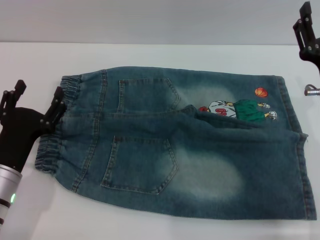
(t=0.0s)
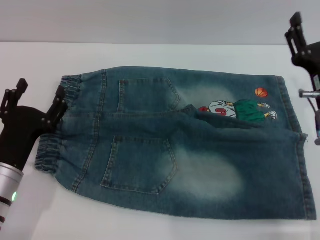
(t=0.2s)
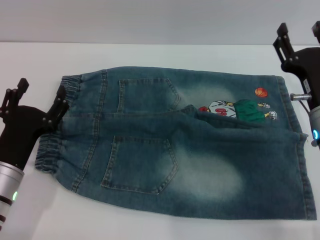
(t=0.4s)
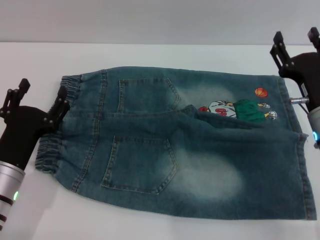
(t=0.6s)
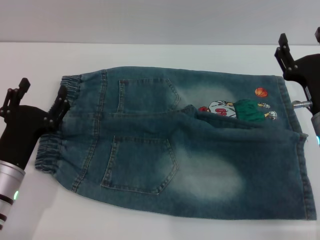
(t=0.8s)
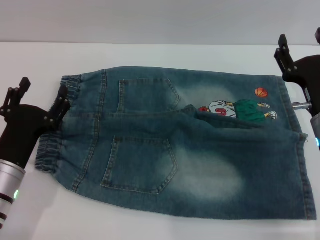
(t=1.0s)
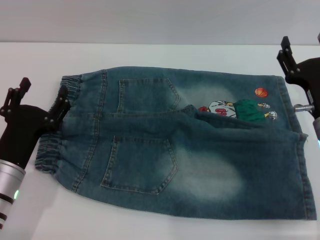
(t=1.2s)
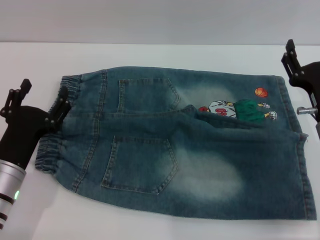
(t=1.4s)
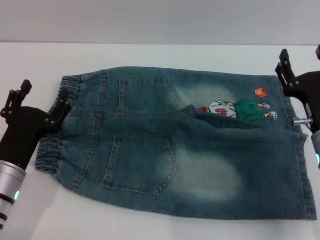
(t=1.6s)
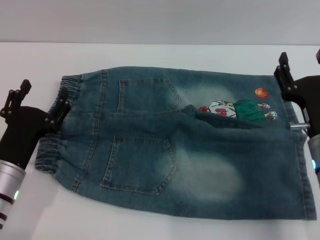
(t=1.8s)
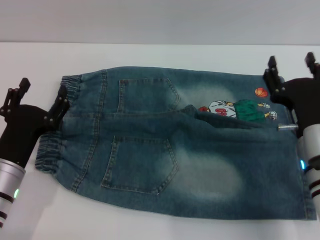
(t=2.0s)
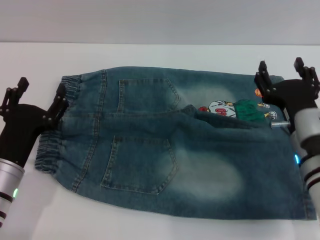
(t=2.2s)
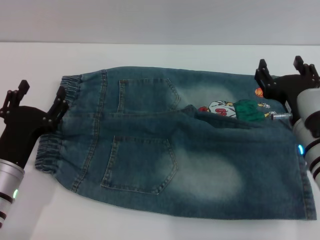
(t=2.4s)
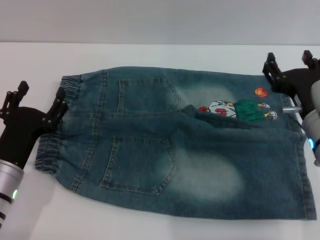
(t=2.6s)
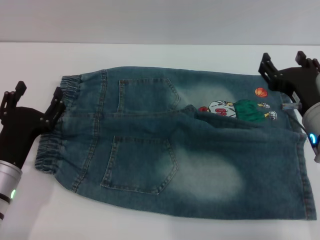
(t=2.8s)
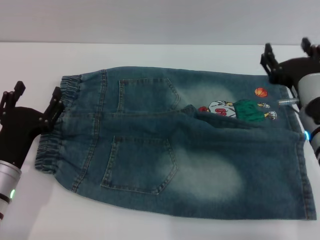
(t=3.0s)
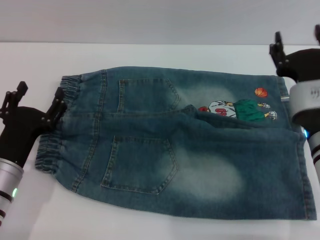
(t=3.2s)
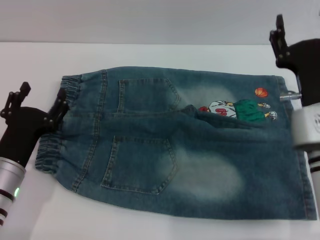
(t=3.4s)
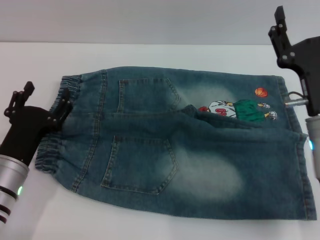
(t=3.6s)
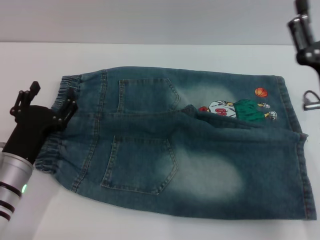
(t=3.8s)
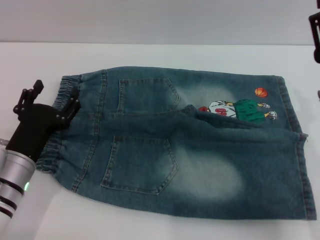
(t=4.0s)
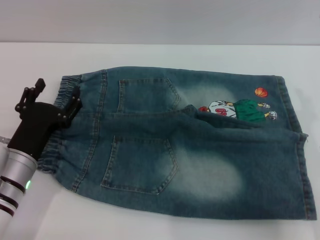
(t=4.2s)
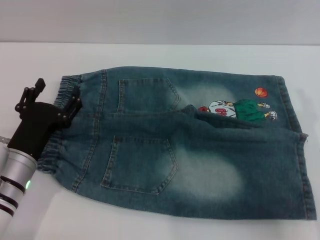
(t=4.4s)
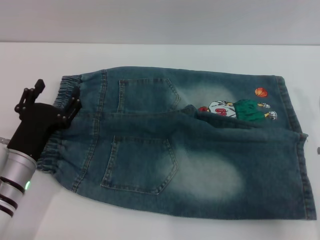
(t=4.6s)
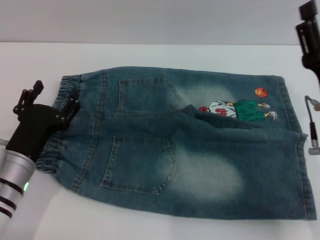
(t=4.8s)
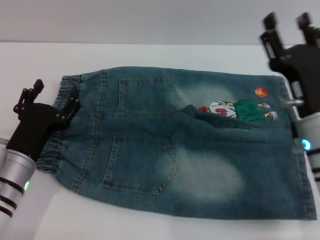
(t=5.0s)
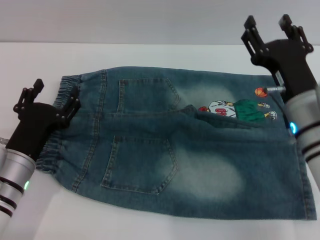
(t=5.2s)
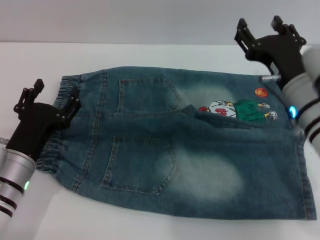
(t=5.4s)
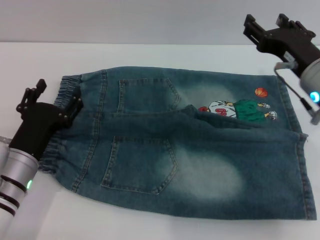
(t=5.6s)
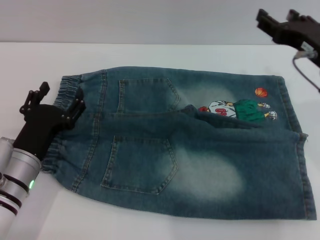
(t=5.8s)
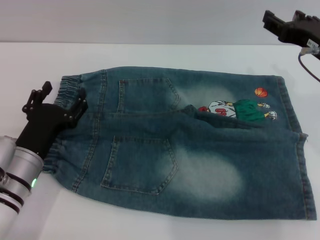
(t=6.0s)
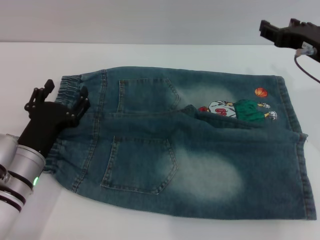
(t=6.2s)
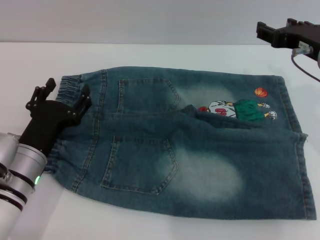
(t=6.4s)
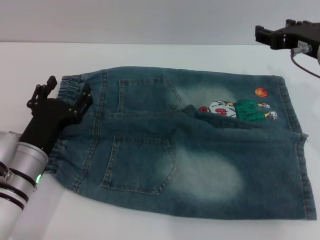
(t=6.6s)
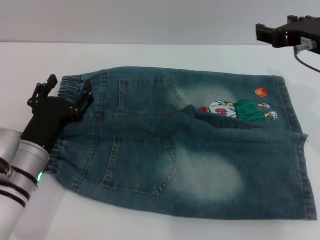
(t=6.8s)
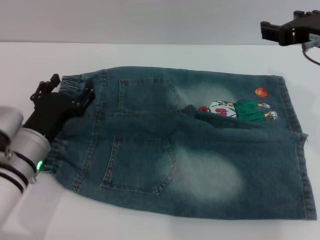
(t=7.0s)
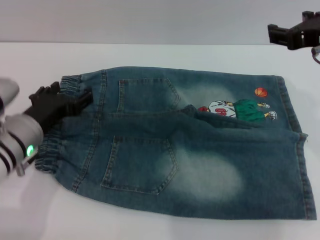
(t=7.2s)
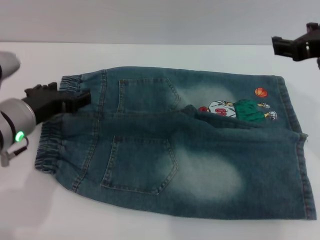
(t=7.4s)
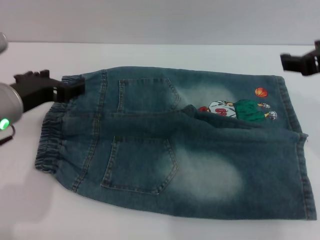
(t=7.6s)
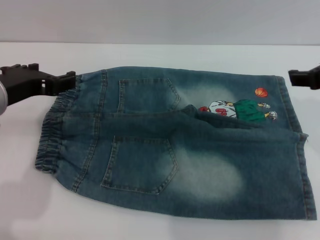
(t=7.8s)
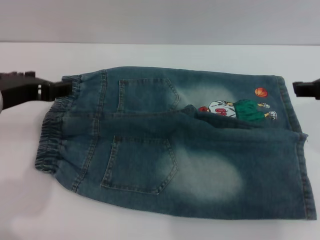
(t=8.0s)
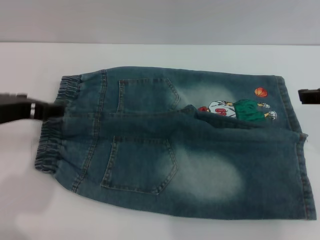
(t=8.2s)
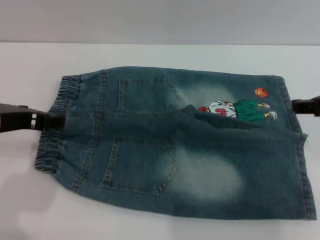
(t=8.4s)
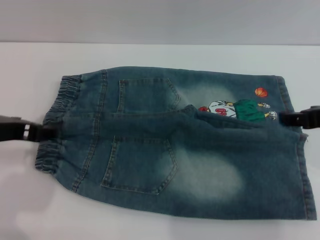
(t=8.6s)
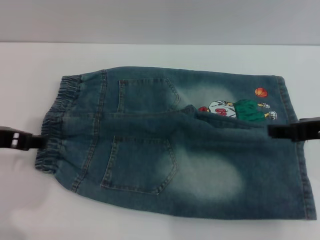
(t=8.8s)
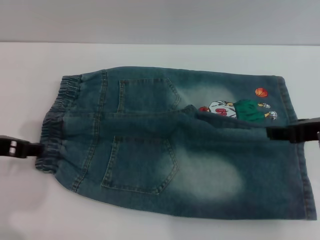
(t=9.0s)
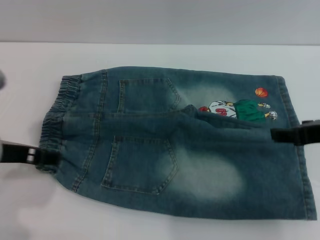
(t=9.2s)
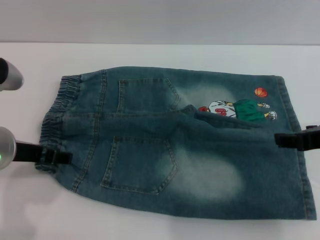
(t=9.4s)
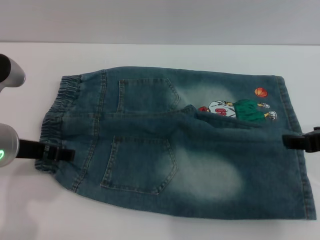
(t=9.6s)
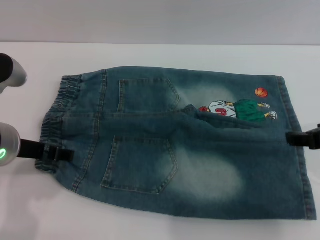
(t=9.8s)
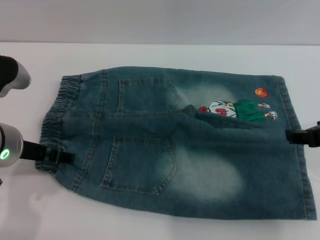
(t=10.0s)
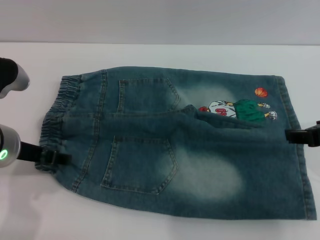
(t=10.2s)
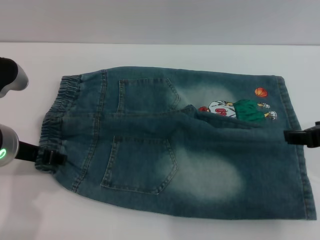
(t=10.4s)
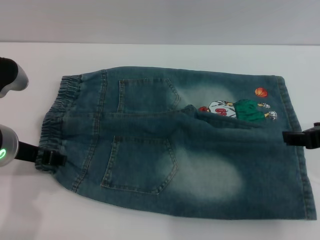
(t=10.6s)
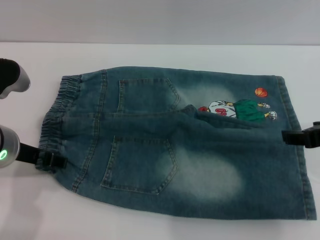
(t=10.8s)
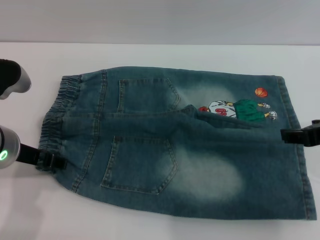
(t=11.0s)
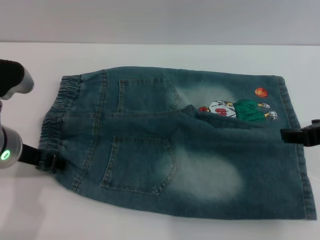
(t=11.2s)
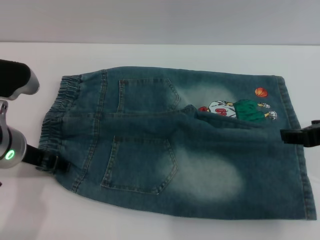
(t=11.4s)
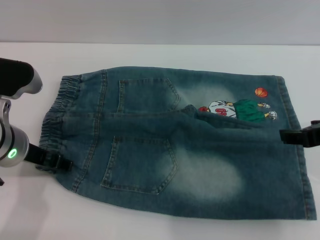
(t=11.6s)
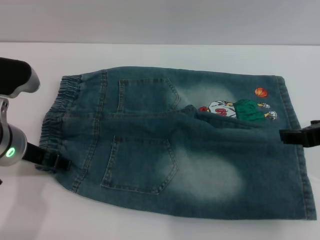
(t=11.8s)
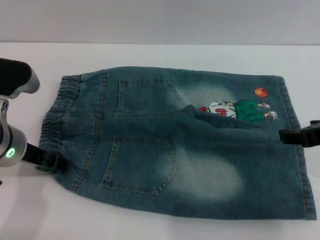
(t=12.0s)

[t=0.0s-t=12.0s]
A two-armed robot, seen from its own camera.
t=0.0s to t=1.6s: There are only small adjustments of the grippers.
t=1.6s to t=3.0s: The right gripper moves upward, roughly 5 cm.
t=4.4s to t=6.0s: The right gripper is displaced forward and upward by roughly 10 cm.
t=6.0s to t=7.6s: The left gripper goes about 15 cm upward, while the right gripper moves upward and backward, roughly 10 cm.
t=7.6s to t=9.0s: The right gripper moves some 5 cm.
t=9.0s to t=10.4s: The left gripper moves some 5 cm.
t=10.4s to t=12.0s: There are only small adjustments of the grippers.

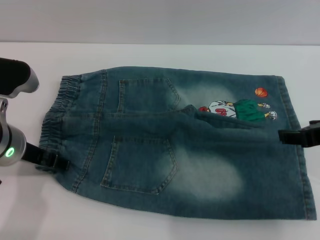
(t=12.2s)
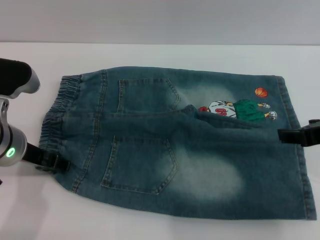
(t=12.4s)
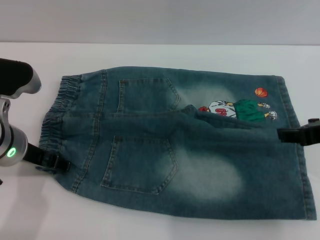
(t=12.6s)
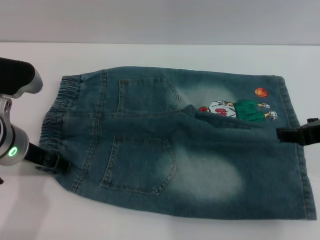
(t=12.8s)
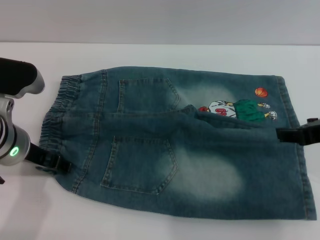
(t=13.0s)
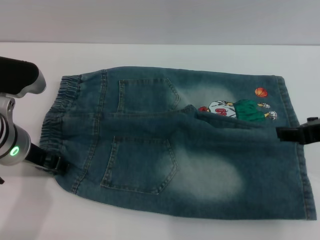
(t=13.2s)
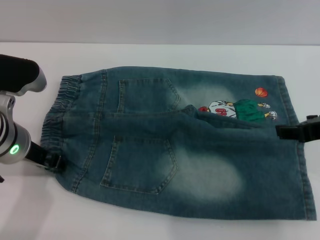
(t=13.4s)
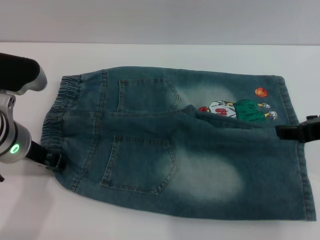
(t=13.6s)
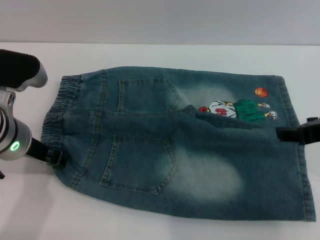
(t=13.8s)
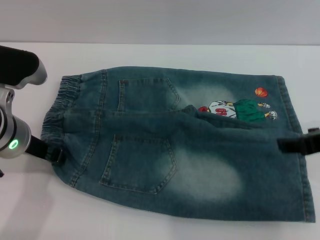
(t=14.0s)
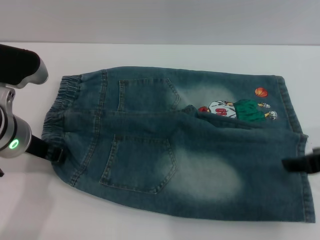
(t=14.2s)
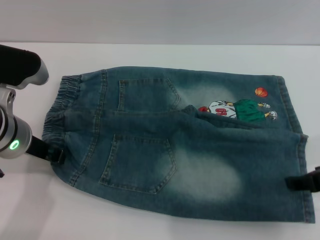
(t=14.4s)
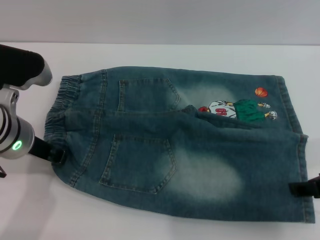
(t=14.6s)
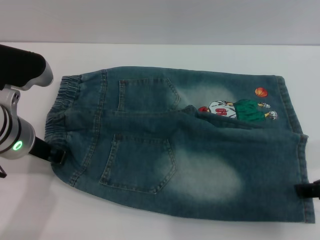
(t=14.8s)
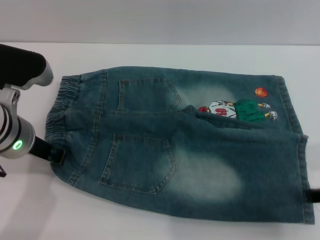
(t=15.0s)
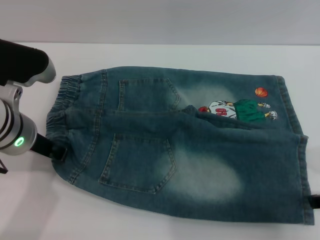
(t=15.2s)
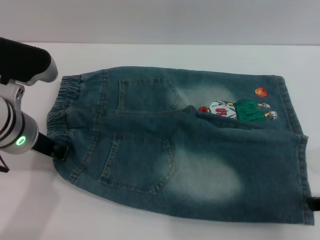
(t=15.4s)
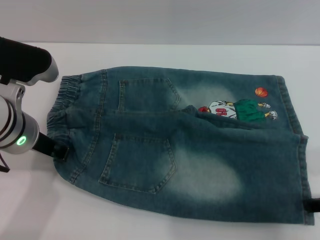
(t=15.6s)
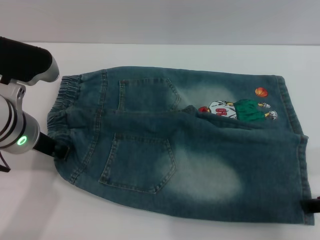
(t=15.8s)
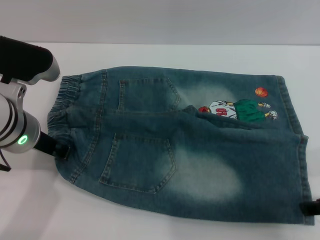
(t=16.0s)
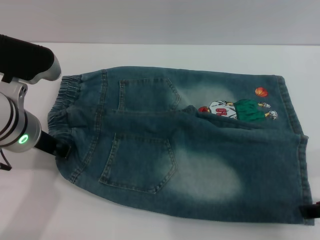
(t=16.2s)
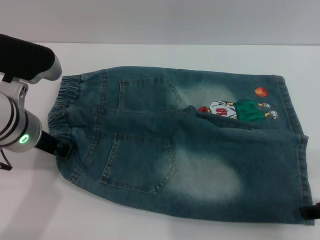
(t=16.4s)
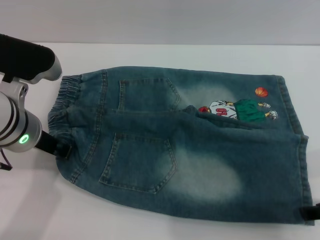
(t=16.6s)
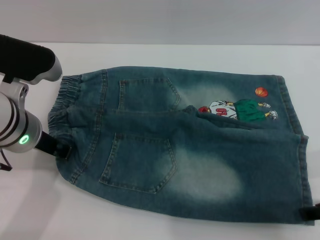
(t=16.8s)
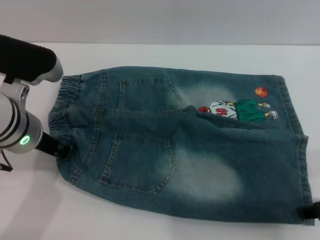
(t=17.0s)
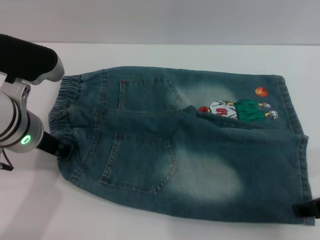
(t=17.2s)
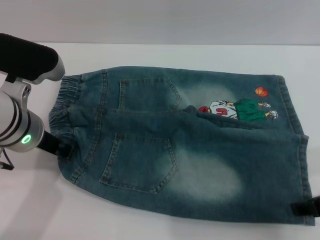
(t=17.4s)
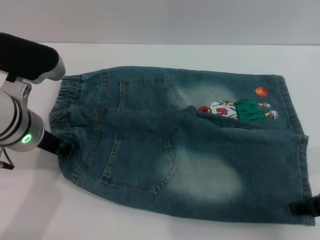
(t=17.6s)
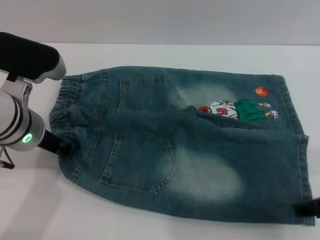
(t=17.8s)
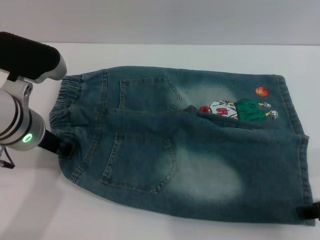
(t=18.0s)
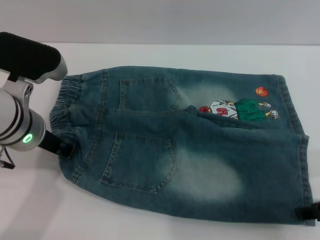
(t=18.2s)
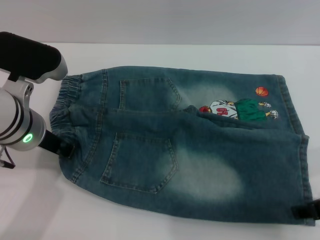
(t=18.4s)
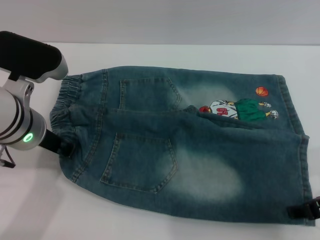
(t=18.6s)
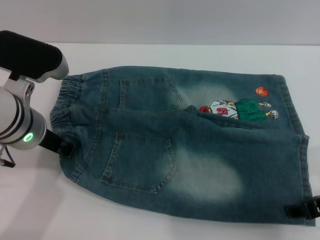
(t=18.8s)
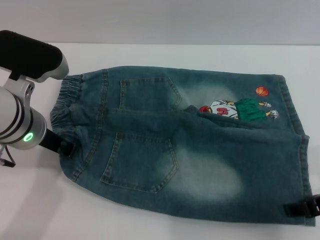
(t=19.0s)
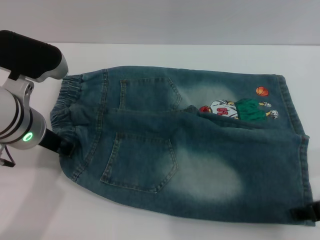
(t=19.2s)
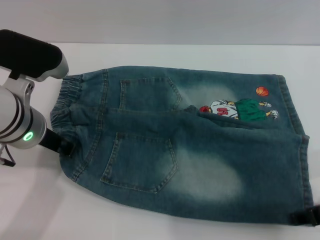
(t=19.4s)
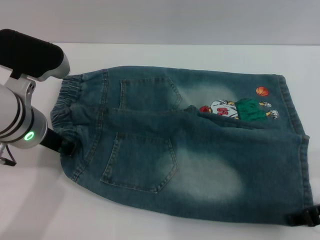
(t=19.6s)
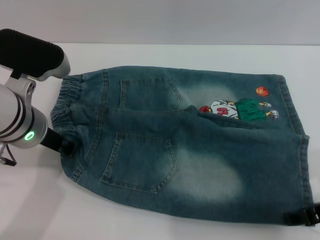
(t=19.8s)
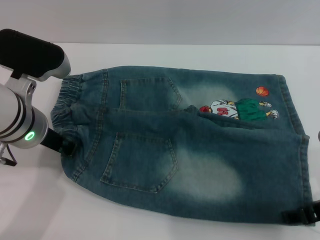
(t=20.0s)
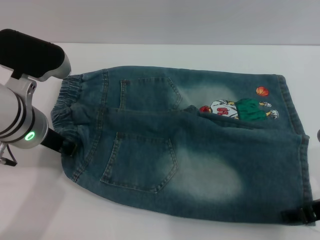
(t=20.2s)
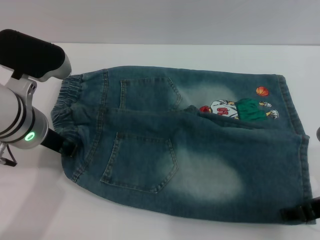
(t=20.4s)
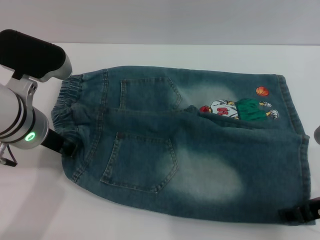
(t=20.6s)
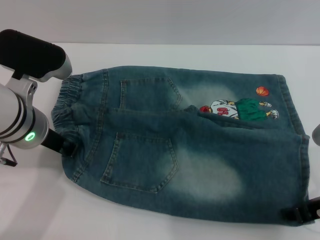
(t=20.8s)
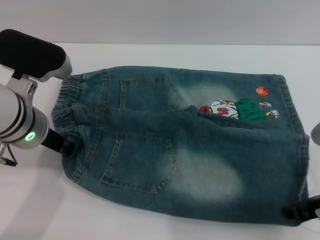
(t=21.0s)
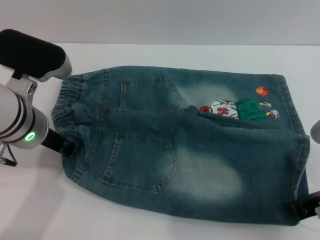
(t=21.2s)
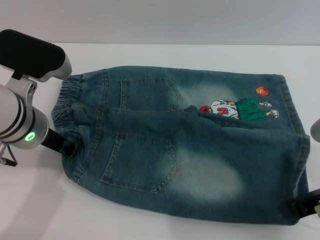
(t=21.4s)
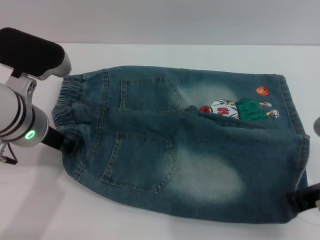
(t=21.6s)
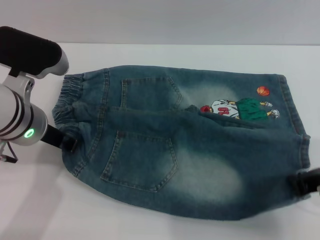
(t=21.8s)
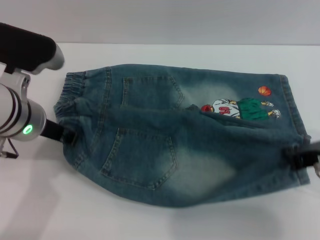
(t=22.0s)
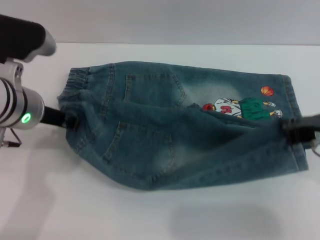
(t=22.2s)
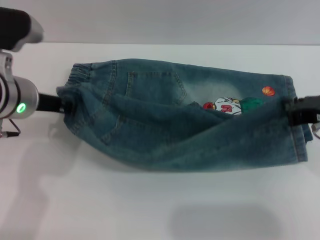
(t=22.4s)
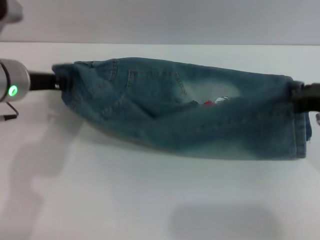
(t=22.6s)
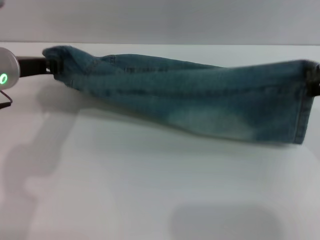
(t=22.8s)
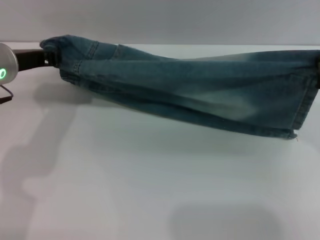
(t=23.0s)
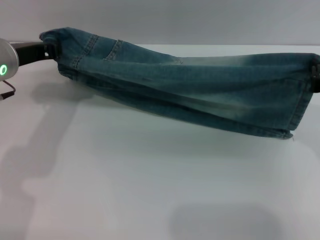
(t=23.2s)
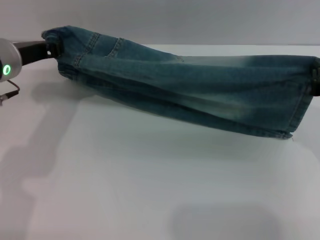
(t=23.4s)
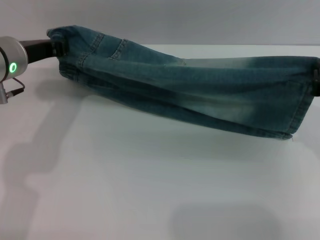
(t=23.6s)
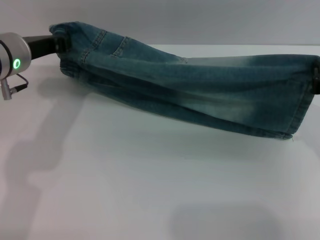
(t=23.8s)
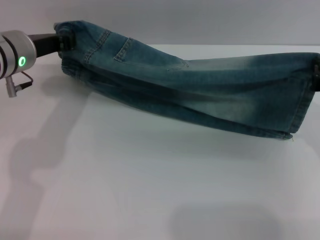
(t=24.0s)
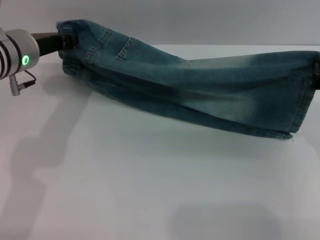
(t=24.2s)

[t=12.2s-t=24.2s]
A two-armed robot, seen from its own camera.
t=12.2s to t=13.8s: The left gripper closes up.
t=13.8s to t=15.2s: The right gripper changes place by some 5 cm.
t=15.2s to t=16.6s: Both grippers stay about where they are.
t=16.6s to t=18.2s: Both grippers stay about where they are.
t=18.2s to t=19.8s: There are only small adjustments of the grippers.
t=19.8s to t=21.2s: The right gripper closes.
t=21.2s to t=22.6s: The right gripper is displaced forward by some 5 cm, and closes.
